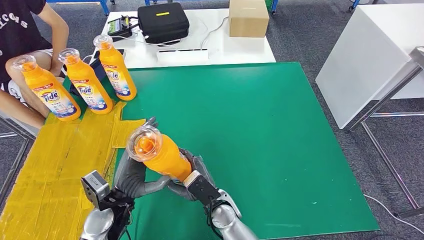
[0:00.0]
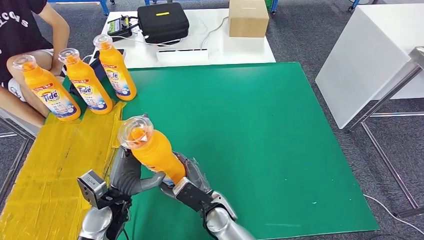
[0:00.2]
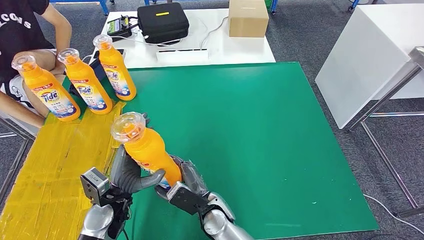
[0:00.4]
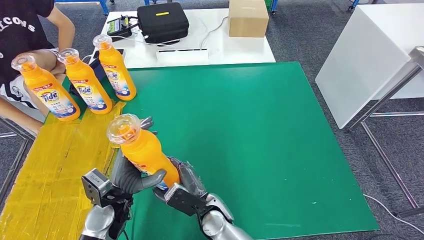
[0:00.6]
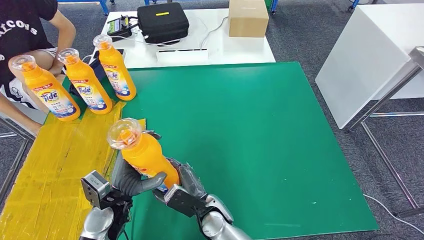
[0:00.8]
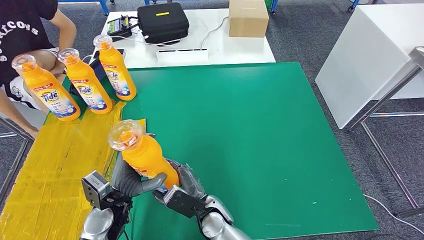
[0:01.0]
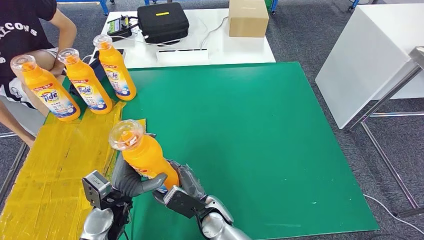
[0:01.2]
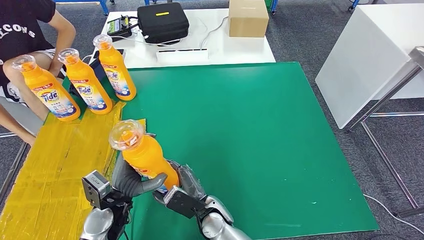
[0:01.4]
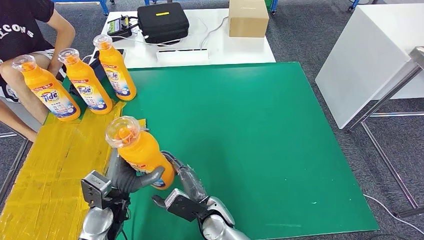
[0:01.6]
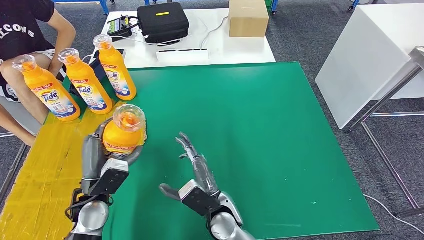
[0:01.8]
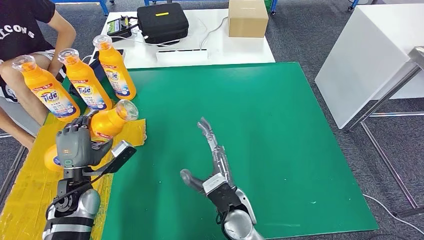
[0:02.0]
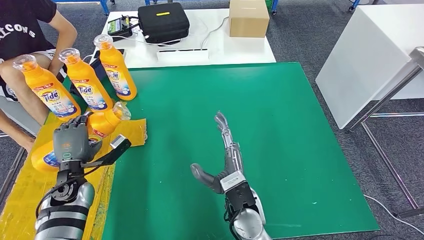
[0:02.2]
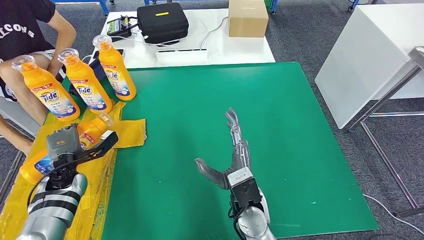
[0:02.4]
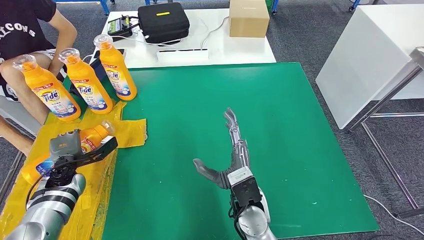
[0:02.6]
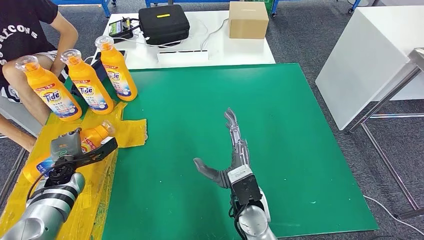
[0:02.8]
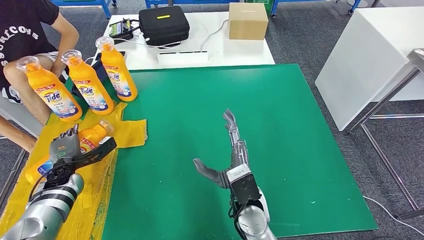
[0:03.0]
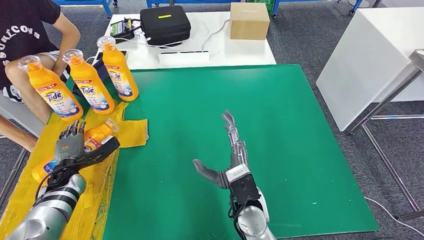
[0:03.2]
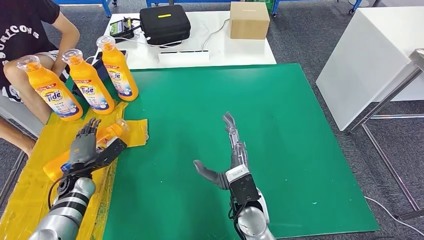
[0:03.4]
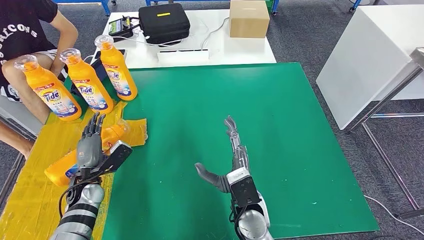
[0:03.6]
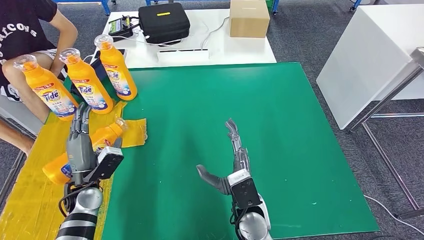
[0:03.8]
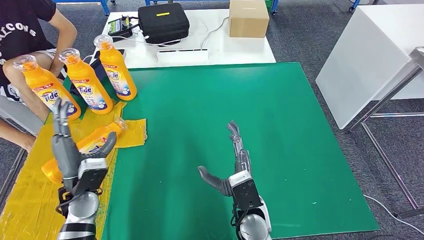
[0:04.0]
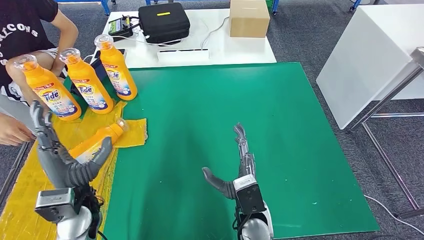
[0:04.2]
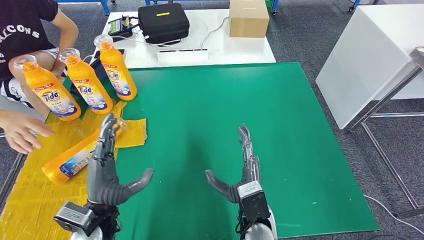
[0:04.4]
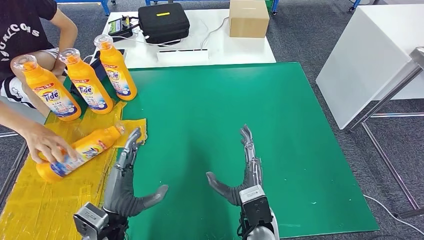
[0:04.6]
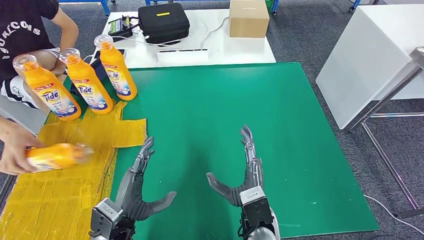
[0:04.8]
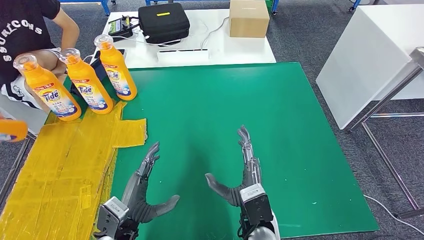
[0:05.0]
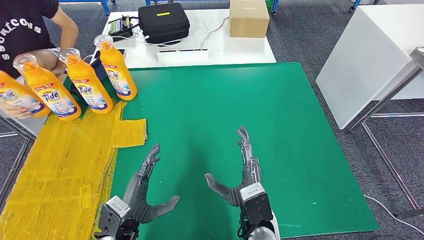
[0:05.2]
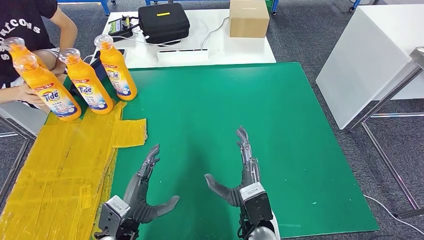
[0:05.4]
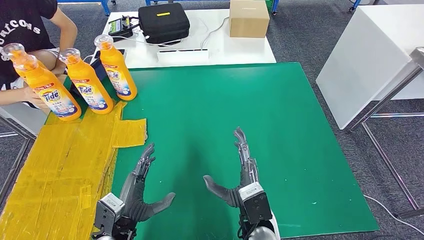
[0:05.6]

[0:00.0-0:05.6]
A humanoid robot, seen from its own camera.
Step, 0:01.4 to 0:05.6: Flip the fast-moving consumer goods bottle to the front side.
0:00.0 to 0:01.4: The hands make only small movements.
0:02.8 to 0:04.2: The left hand is displaced to the right, backward and upward by approximately 20 cm.
0:04.2 to 0:05.6: The left hand goes approximately 10 cm downward, to the right and backward.
